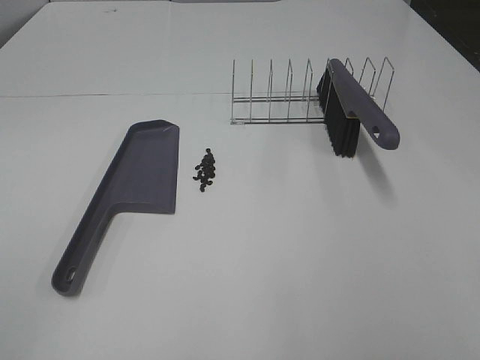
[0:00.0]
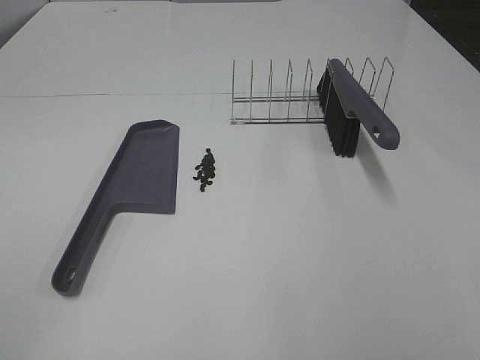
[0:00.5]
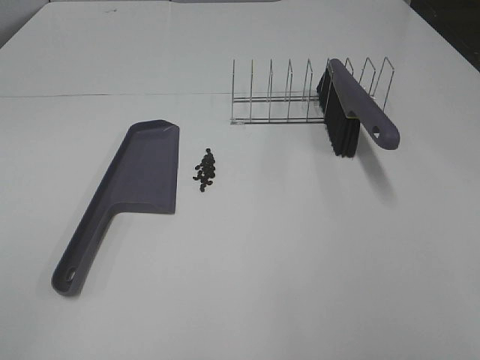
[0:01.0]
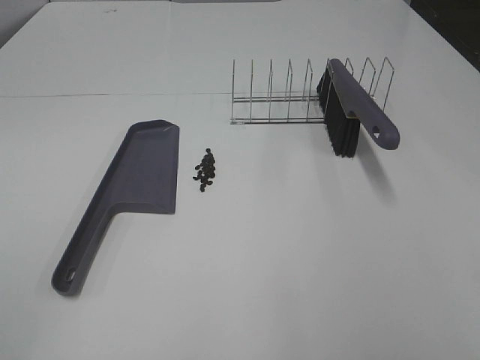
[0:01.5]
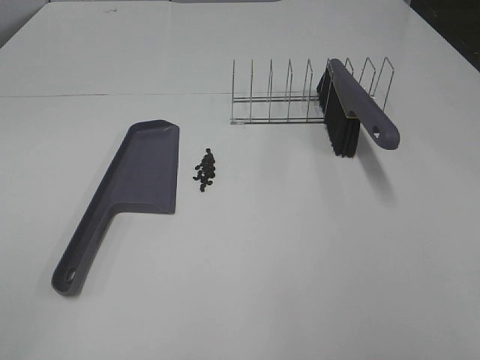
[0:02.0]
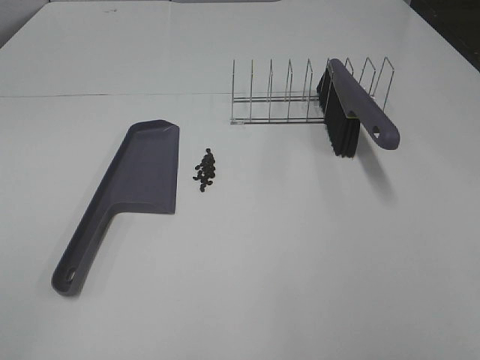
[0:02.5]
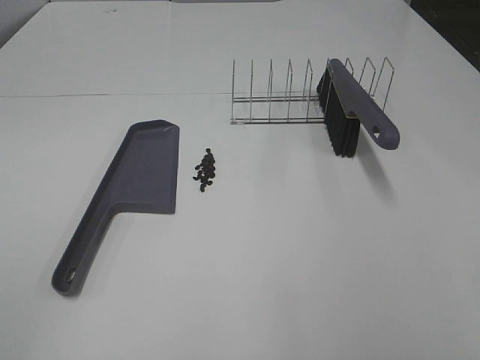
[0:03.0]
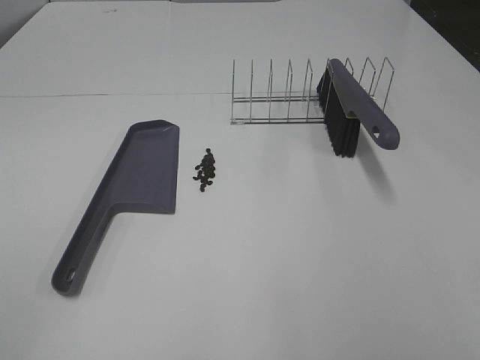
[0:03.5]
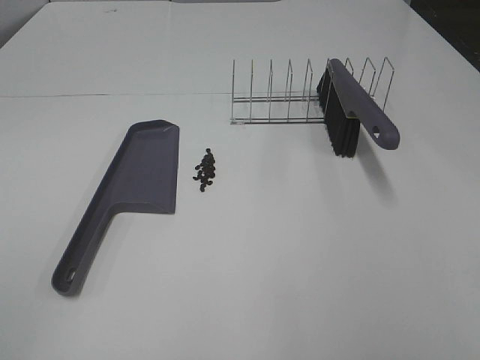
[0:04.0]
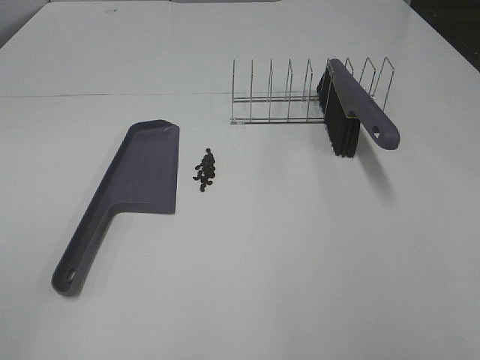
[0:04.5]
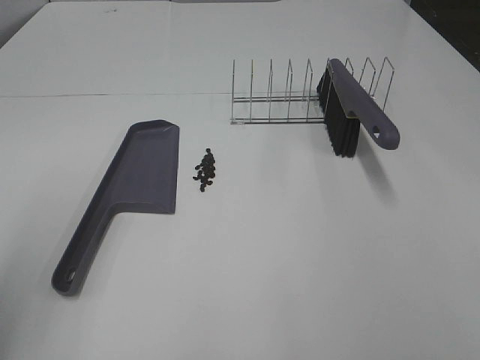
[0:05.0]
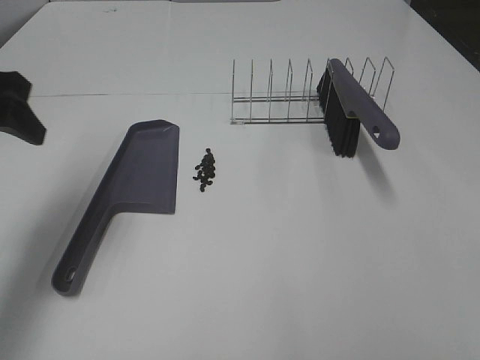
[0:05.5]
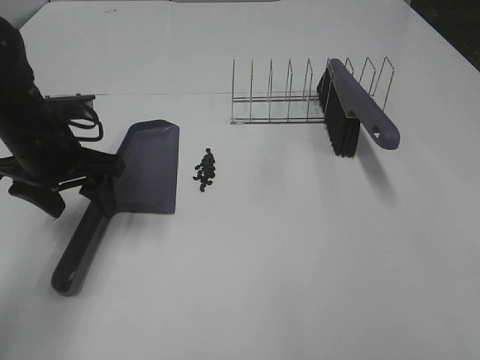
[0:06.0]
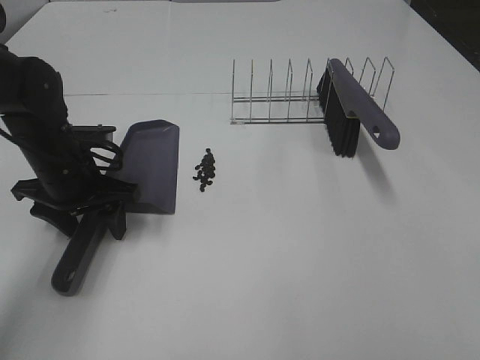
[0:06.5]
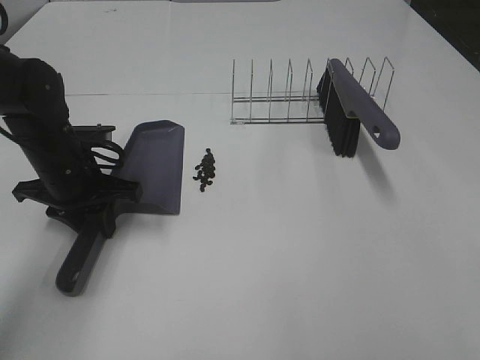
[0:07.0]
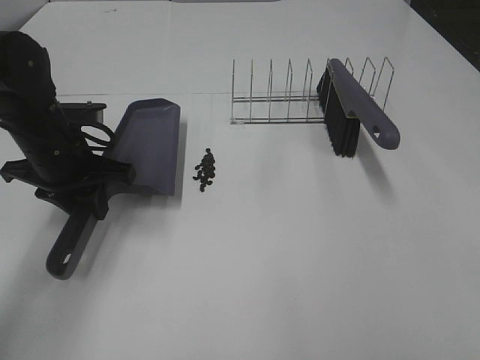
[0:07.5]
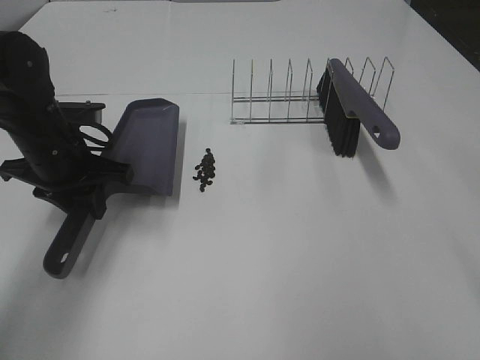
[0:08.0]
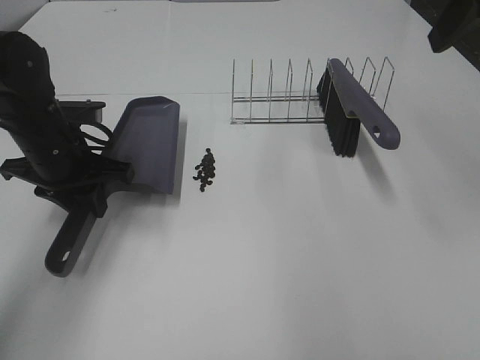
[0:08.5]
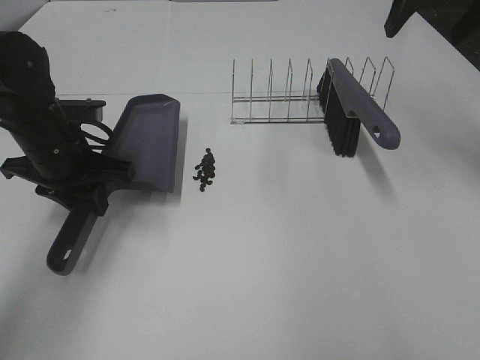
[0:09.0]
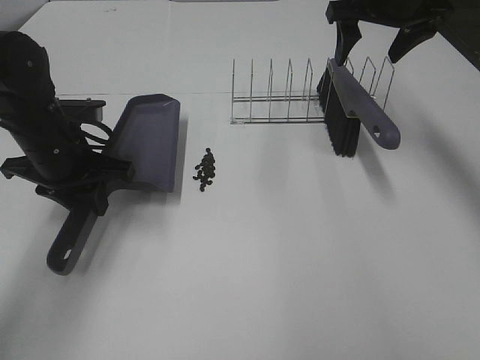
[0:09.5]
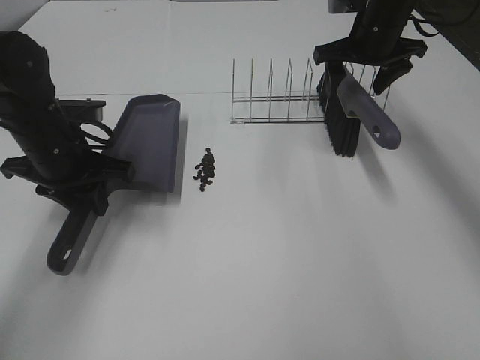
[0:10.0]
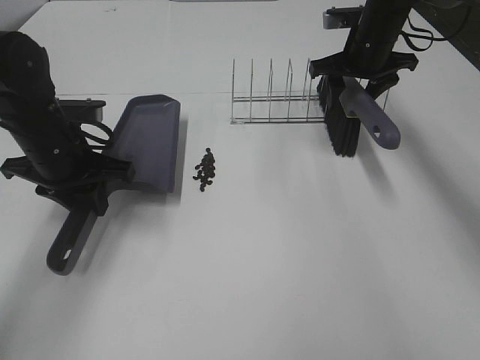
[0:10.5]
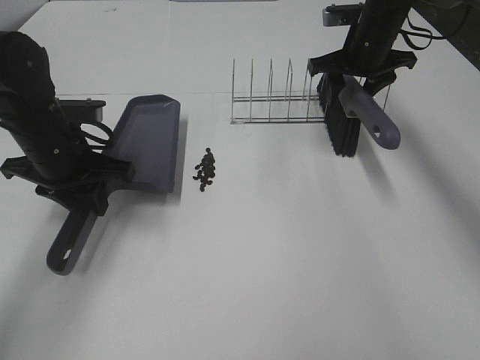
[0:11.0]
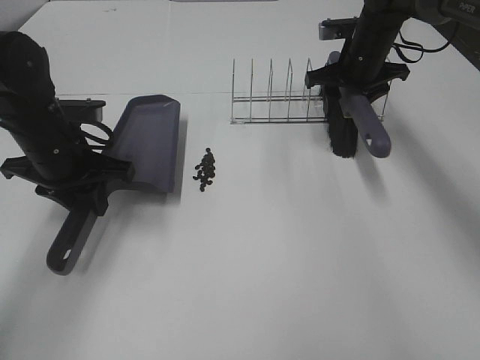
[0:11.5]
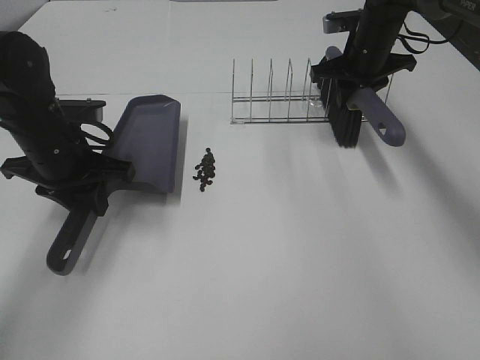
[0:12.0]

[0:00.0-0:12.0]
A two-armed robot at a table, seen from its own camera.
Task of the whole recording: Sweep Coffee Bean.
Step, 0:00.0 to 0:06.5: Left hand: grab the dustpan.
Step, 0:08.0 to 0:11.5: Right hand:grab the broom.
0:00.0 to 0:04.0: Neither gripper changes place.
0:04.0 to 0:06.0: The left gripper shifts some 35 cm forward.
0:06.0 to 0:08.0: The right gripper moves forward and upward, approximately 15 cm, while the left gripper closes up.
0:08.0 to 0:10.0: The right gripper travels forward by roughly 40 cm.
0:10.0 to 0:12.0: The right gripper closes.

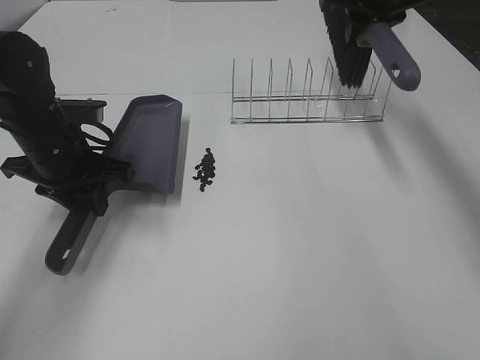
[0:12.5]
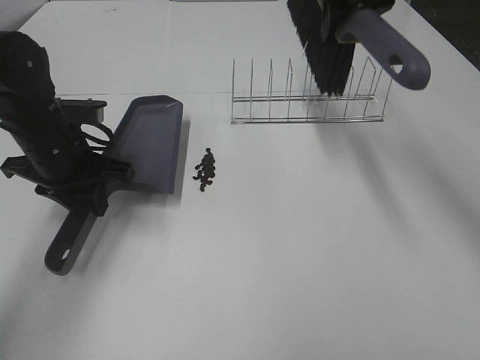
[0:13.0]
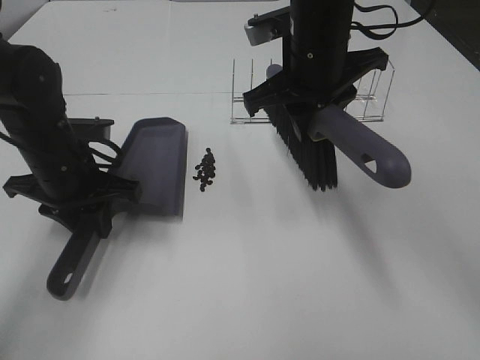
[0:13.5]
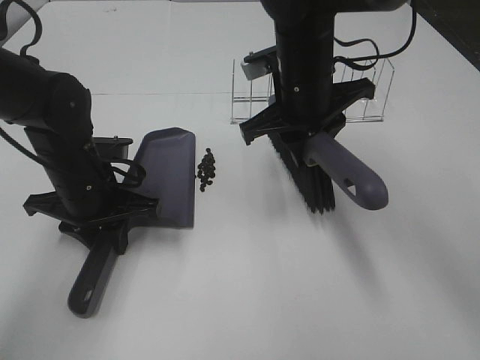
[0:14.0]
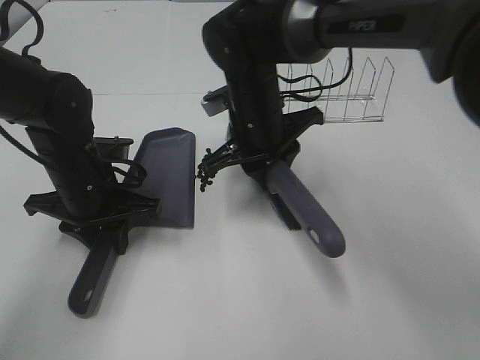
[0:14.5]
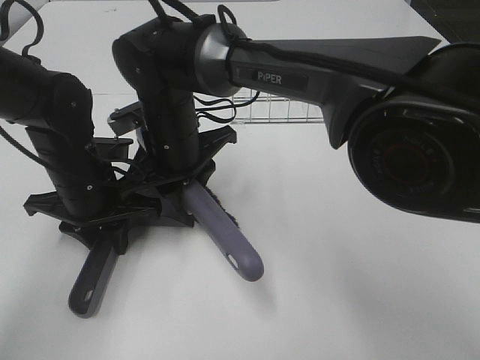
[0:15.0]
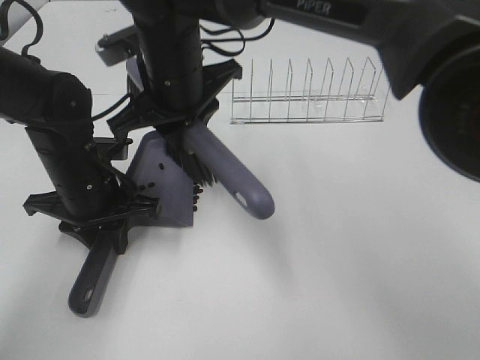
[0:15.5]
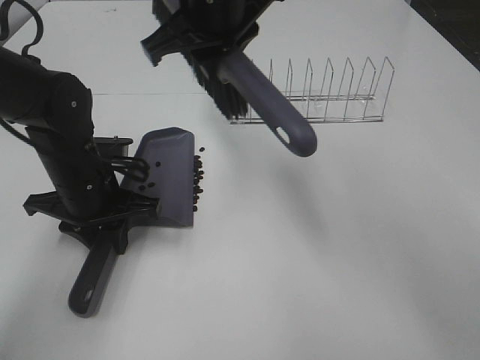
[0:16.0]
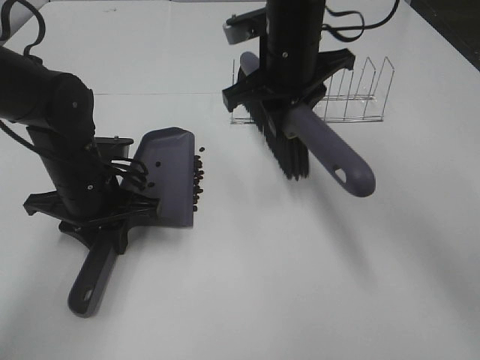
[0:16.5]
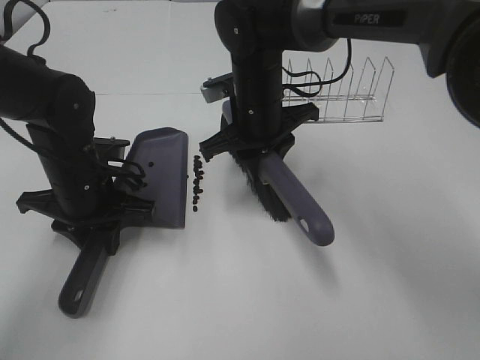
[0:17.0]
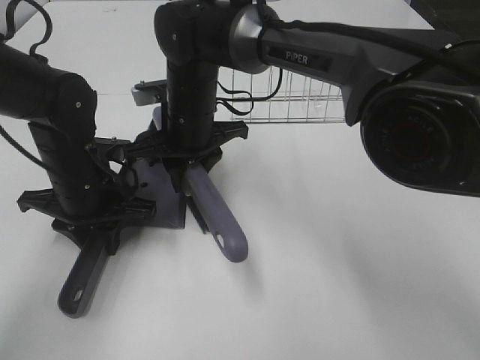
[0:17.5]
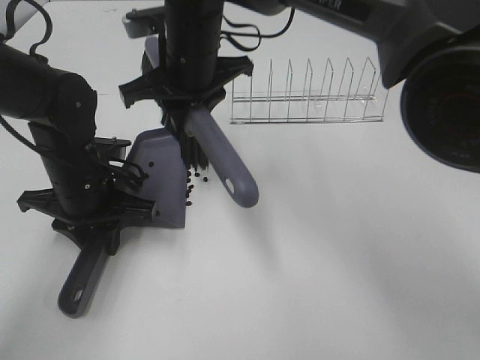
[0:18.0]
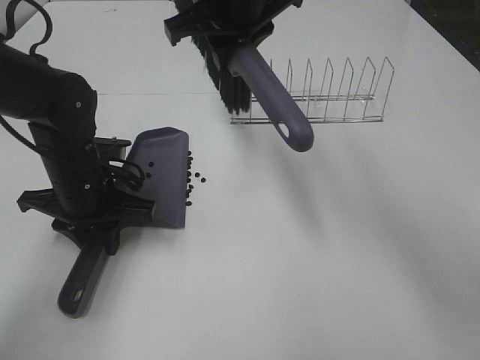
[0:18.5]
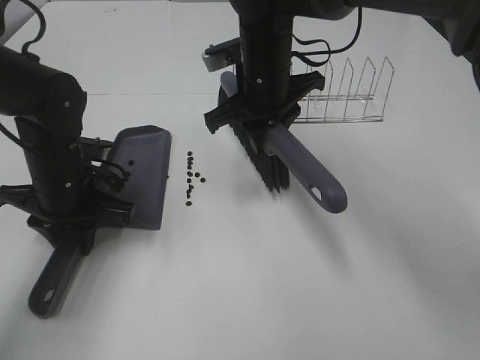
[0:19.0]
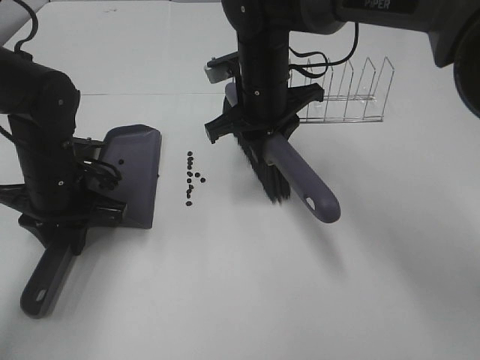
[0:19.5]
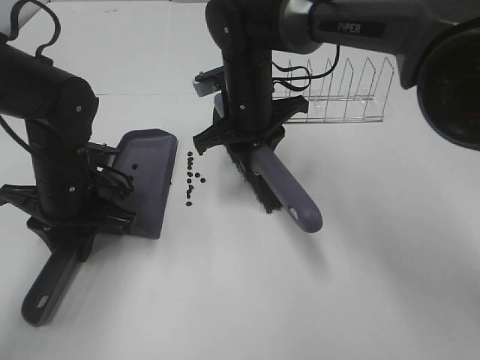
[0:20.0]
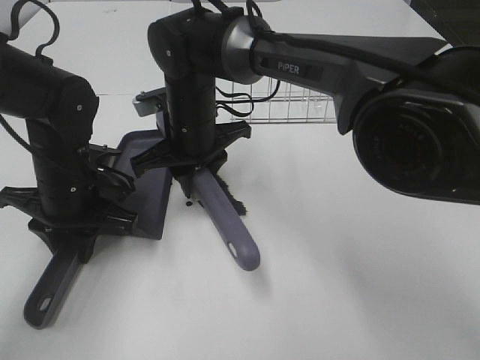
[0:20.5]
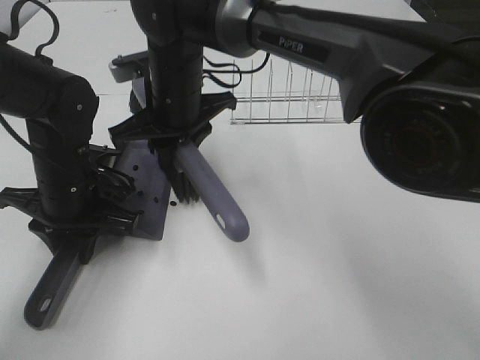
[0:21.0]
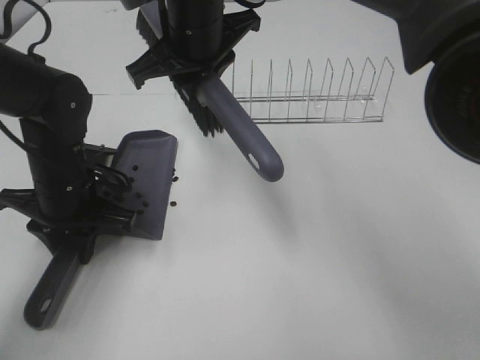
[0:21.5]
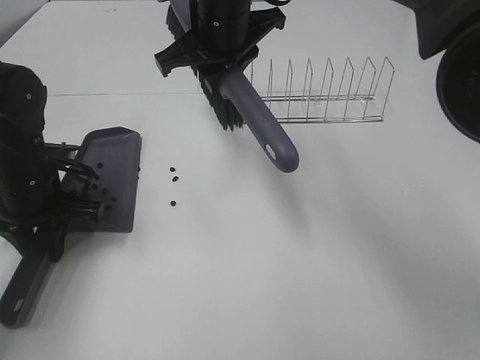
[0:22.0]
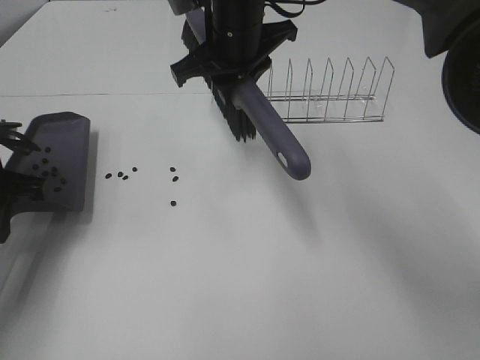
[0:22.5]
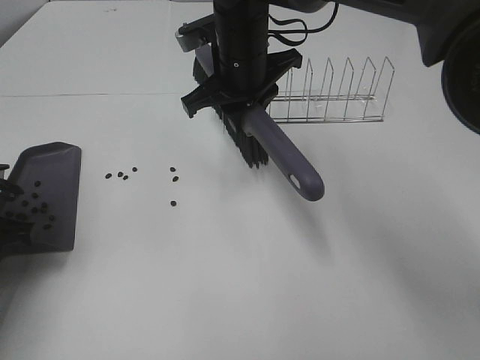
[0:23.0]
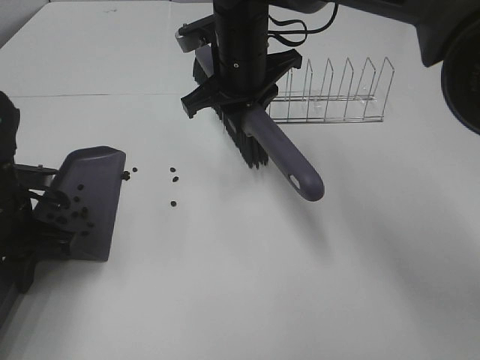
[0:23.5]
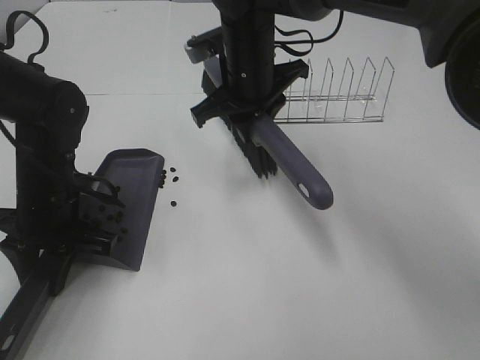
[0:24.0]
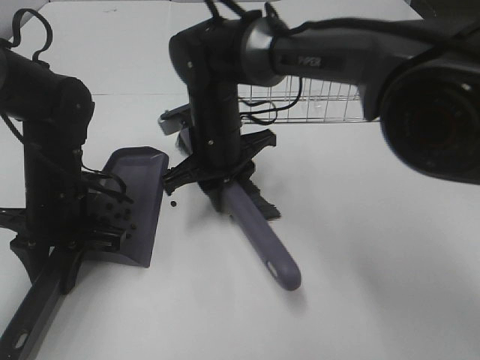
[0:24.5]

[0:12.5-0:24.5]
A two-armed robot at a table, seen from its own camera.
Task of the whole recording: Sweep Coffee Bean.
0:12.5 to 0:14.5: The right gripper shifts about 25 cm to the left, backward and downward. The left gripper changes place by some 5 cm.
0:14.5 to 0:16.5: The right gripper heads upward, covering approximately 10 cm.
0:16.5 to 0:18.5: The right gripper moves upward, approximately 5 cm.
0:18.5 to 0:20.5: The right gripper shifts roughly 15 cm downward and to the left.
0:20.5 to 0:22.5: The left gripper heads to the left and upward, covering about 10 cm; the right gripper is displaced upward and to the right by roughly 10 cm.
0:22.5 to 0:24.5: The left gripper shifts about 10 cm to the right and downward; the right gripper goes about 10 cm downward.

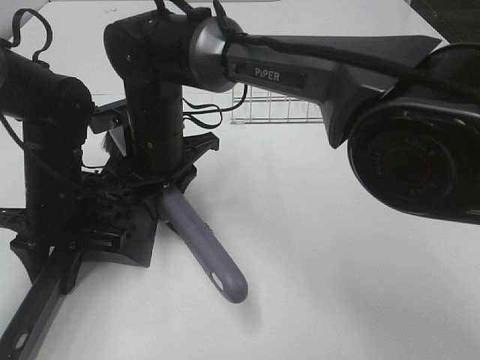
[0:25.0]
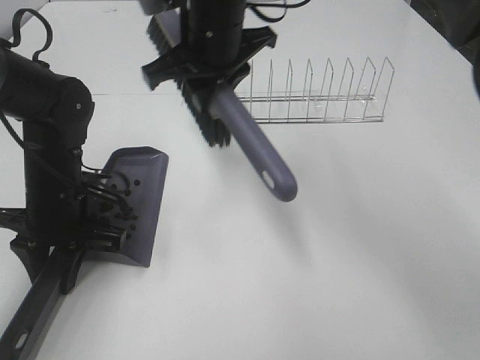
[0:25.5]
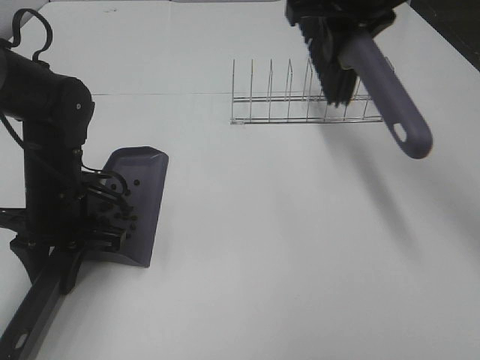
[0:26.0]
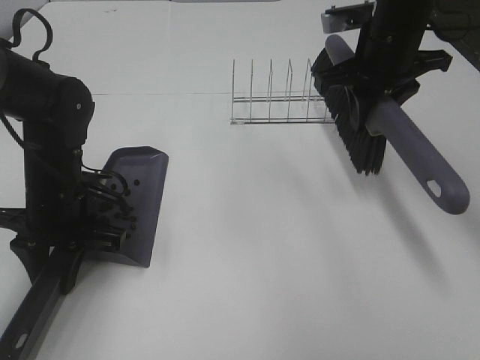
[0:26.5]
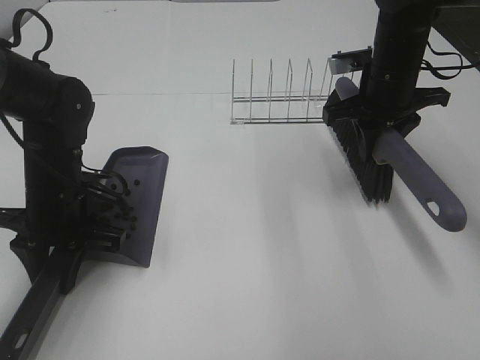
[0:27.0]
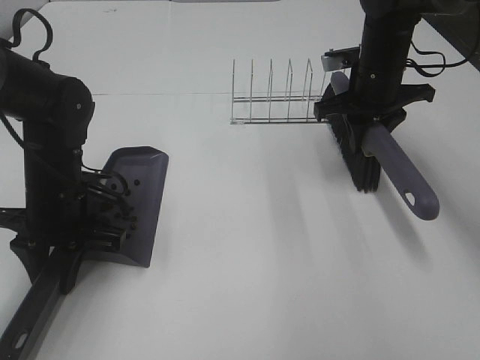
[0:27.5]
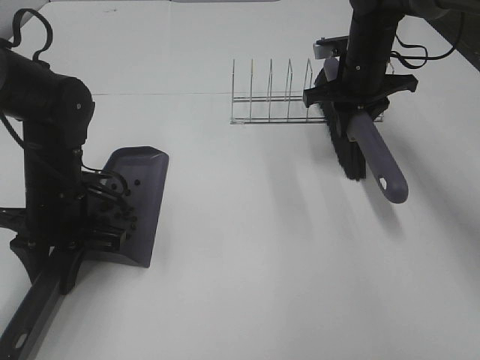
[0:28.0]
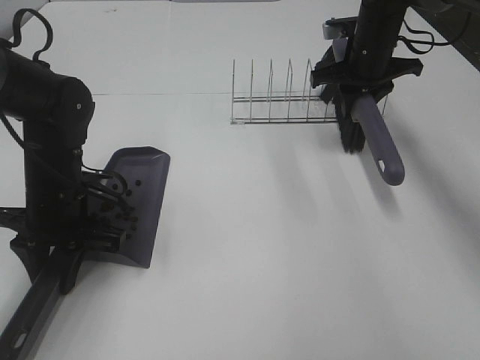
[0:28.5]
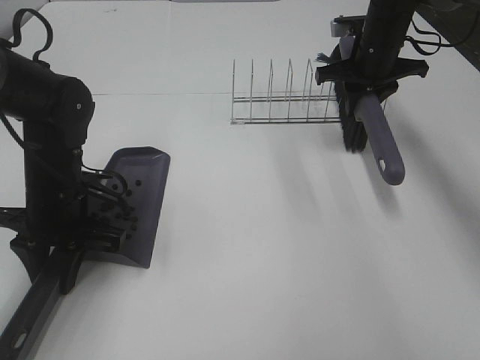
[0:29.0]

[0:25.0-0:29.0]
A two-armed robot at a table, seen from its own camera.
Task of the whole recording: Sweep Coffee Bean.
0:25.0 to 0:27.0: The right gripper is displaced to the right by some 30 cm.
0:27.0 to 0:29.0: The right gripper travels forward by some 10 cm.
